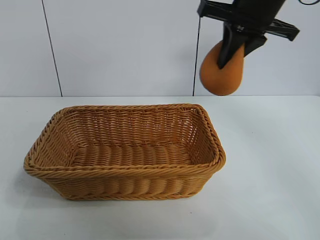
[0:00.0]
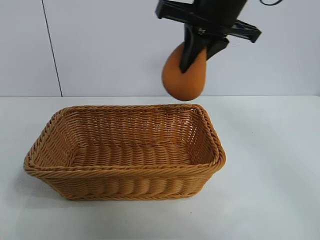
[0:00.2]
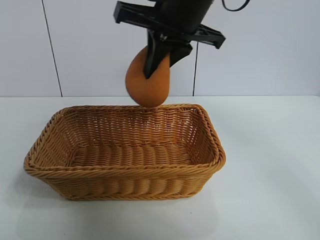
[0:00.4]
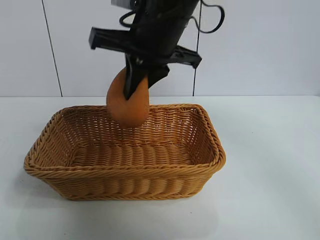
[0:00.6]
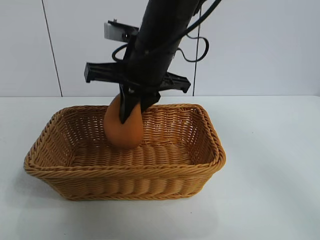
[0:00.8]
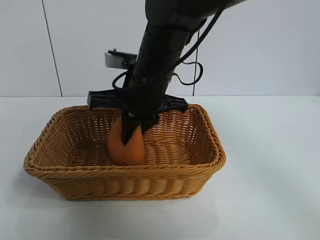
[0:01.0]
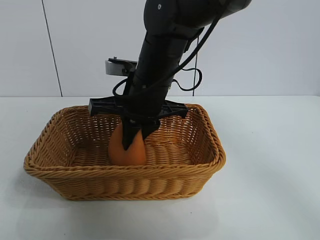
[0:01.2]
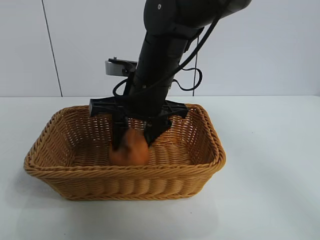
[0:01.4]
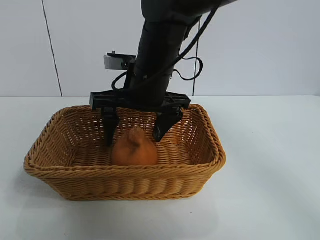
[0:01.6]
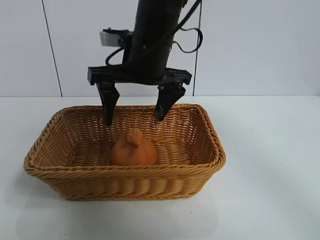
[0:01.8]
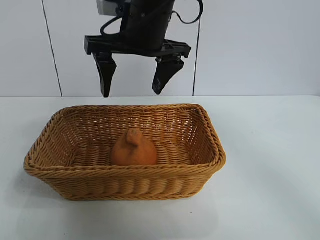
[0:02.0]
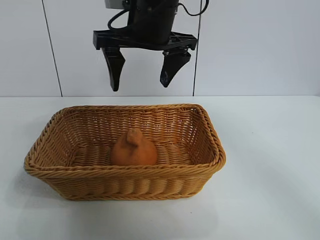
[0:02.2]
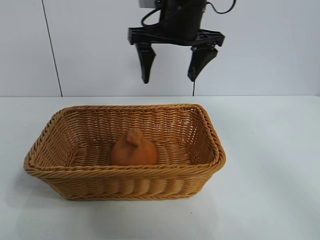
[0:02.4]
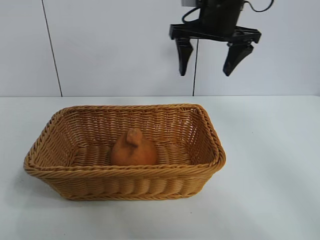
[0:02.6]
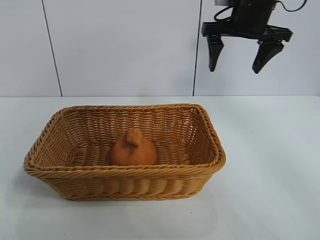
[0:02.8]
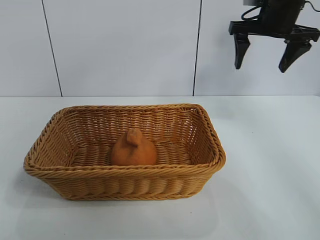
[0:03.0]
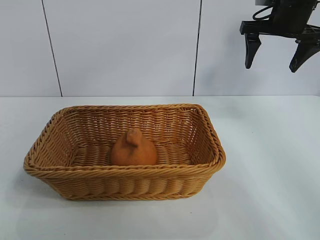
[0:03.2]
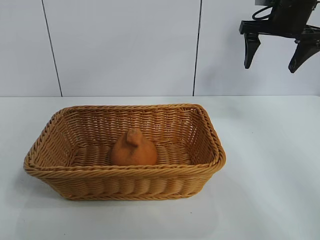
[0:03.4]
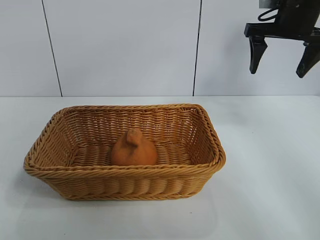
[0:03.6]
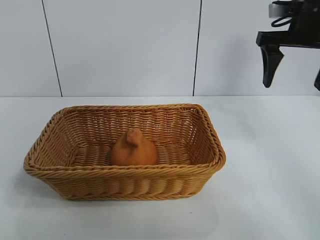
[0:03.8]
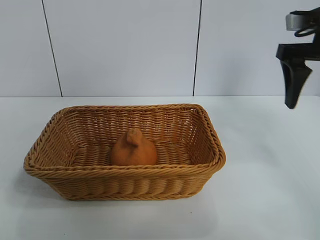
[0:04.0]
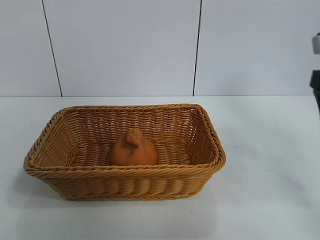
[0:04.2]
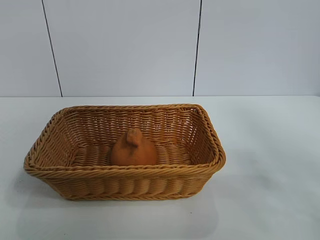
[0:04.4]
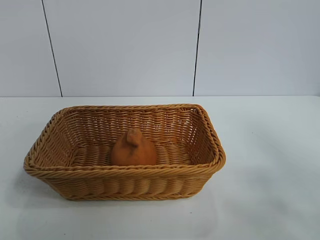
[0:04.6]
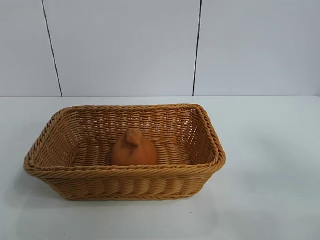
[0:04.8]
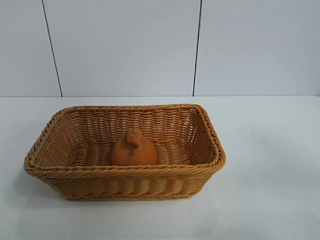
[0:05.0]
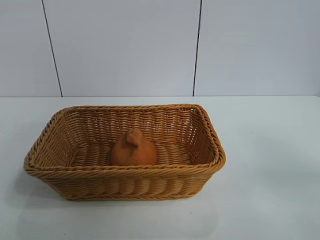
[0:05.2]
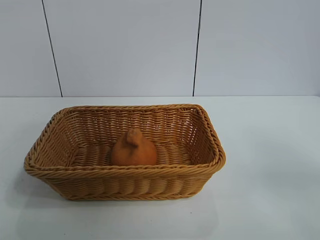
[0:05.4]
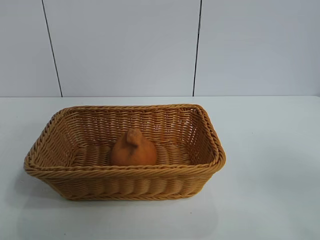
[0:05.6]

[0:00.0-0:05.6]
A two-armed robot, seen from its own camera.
Task of the whole recording: pick up the orange and put it into the basket.
Step, 0:00.0 to 0:01.6: Place the orange in the basket with right gripper.
